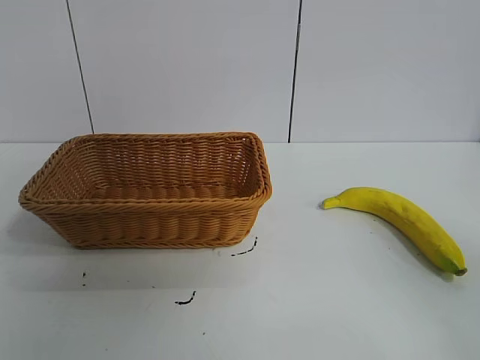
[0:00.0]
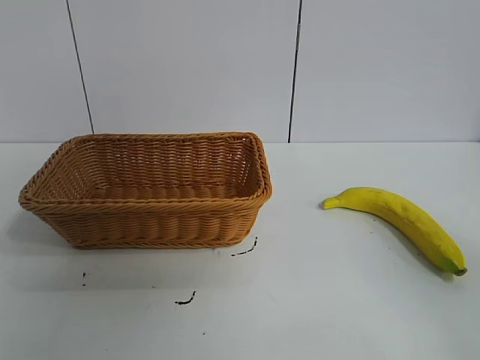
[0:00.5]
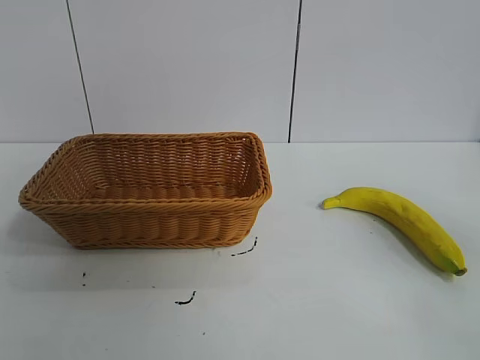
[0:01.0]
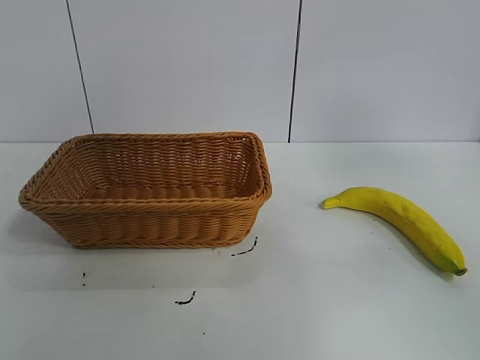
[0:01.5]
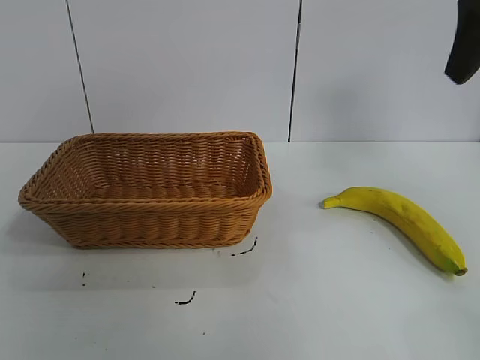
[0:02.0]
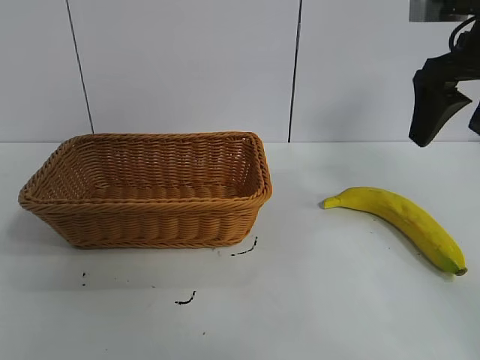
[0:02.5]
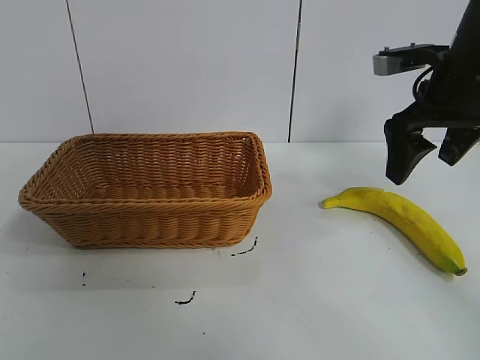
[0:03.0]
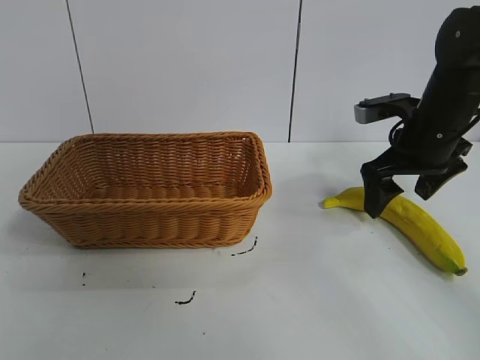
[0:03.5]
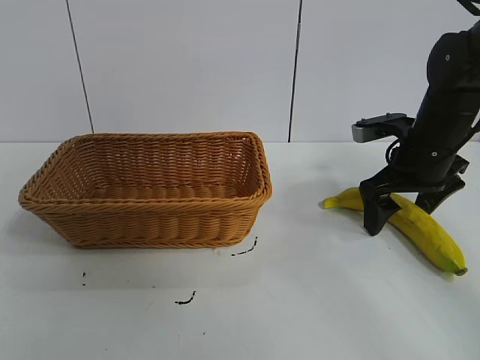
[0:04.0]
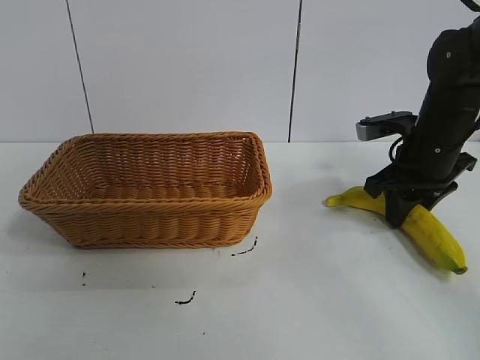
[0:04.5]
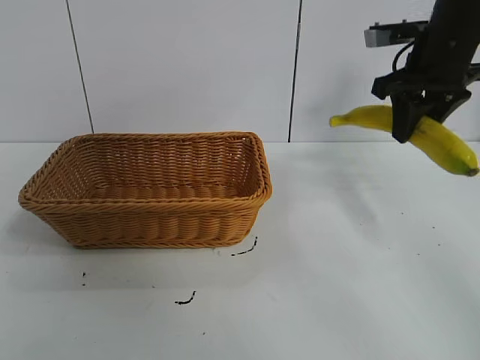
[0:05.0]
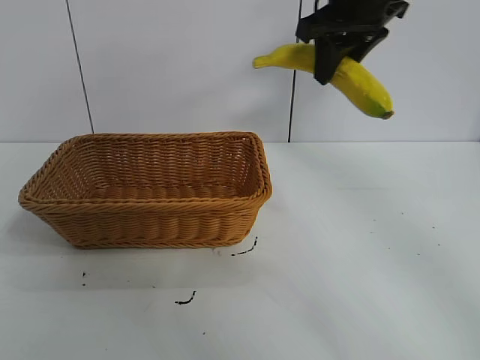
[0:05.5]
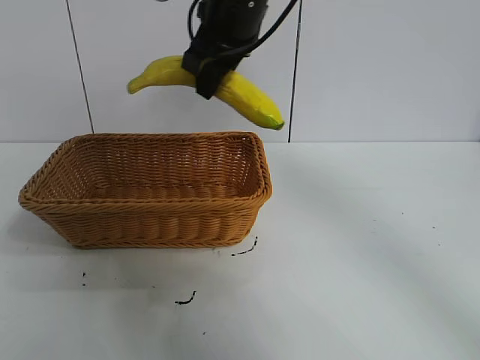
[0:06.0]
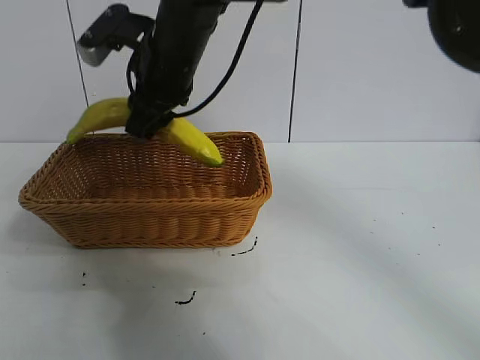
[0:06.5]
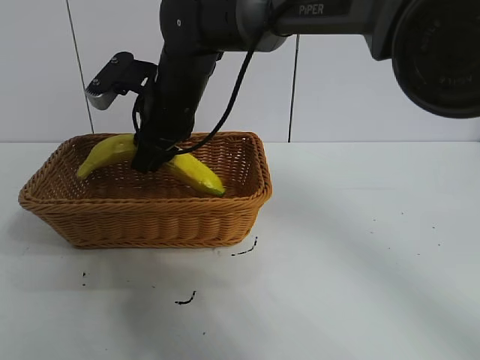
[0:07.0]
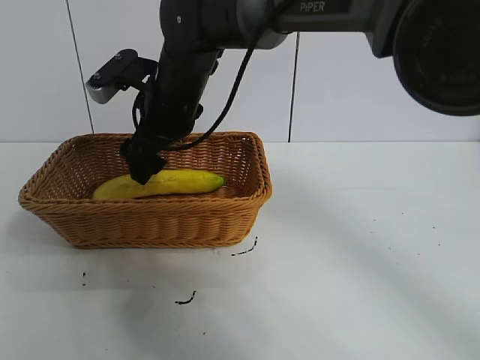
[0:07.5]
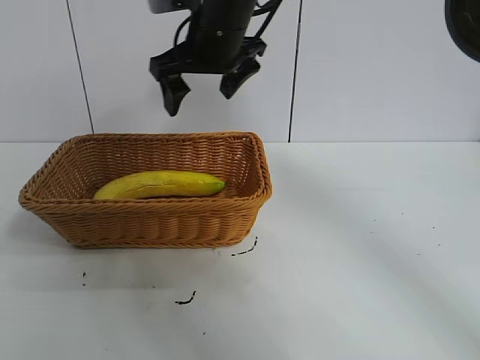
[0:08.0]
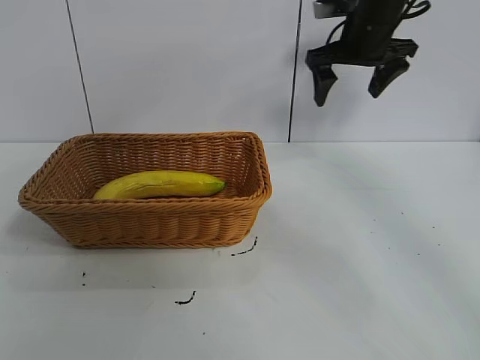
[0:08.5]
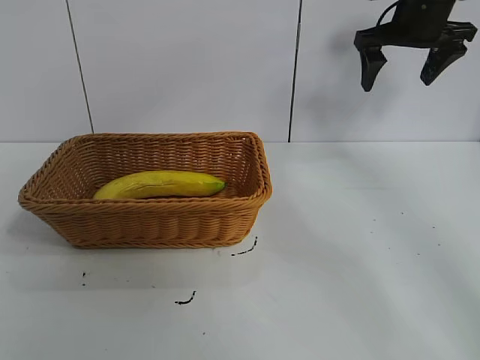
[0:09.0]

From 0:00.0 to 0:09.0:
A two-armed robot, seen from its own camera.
Task of the whole recording: pick up the banana and put it into the basket.
Step, from 0:01.0 to 0:04.0: Grasp the banana with right gripper.
Step, from 0:04.5 to 0:07.0: Place the banana in the basket with right gripper.
